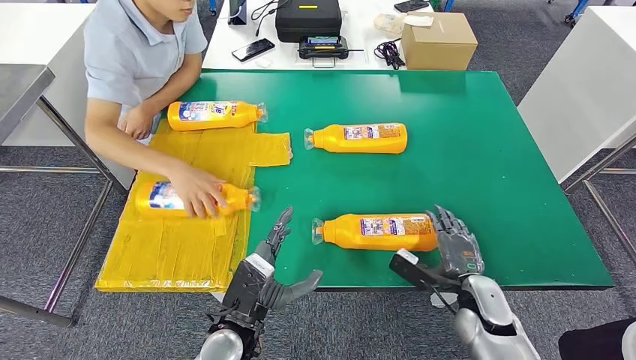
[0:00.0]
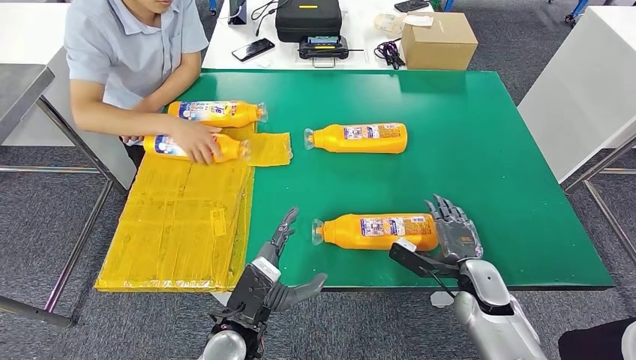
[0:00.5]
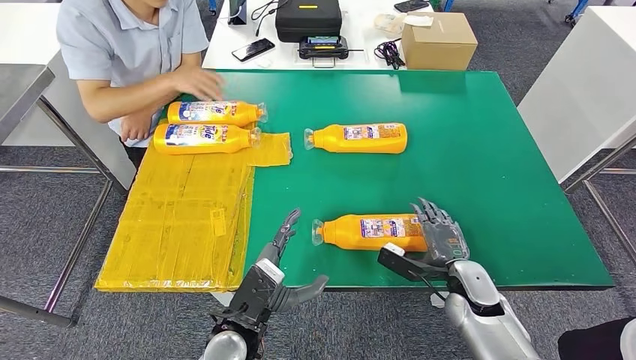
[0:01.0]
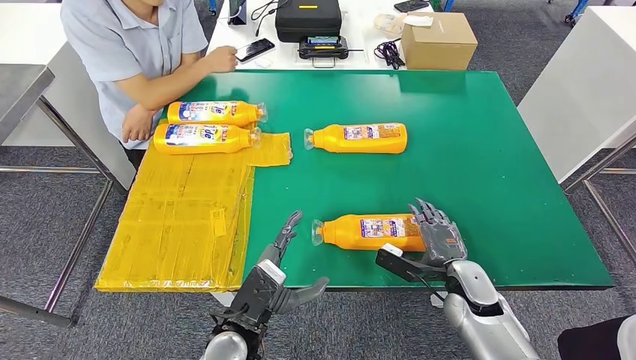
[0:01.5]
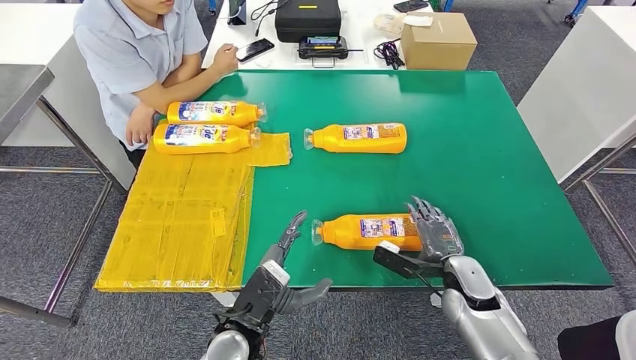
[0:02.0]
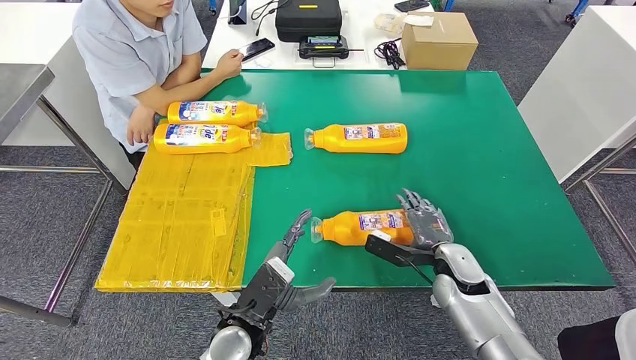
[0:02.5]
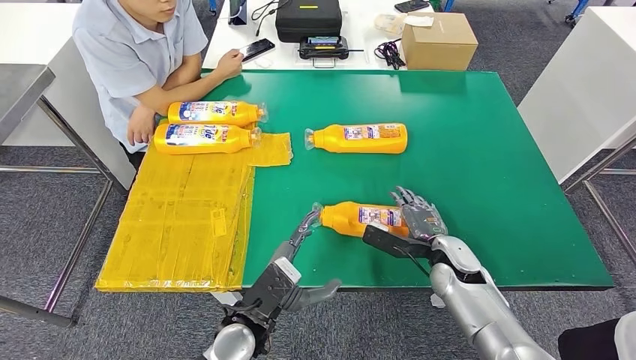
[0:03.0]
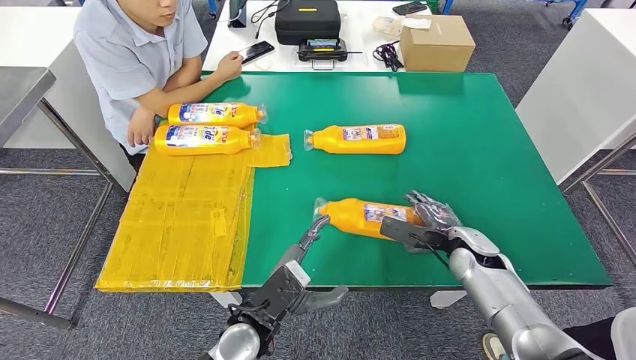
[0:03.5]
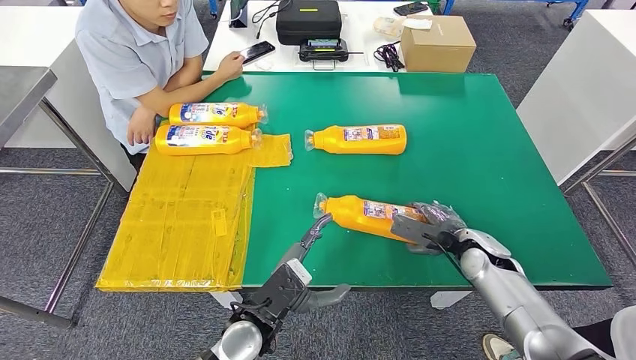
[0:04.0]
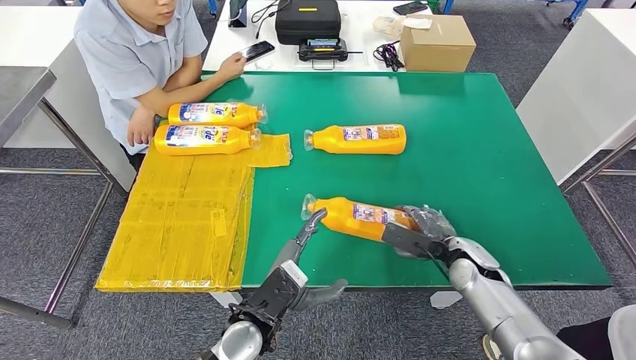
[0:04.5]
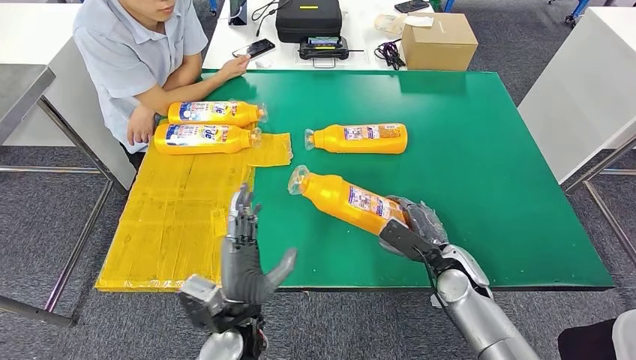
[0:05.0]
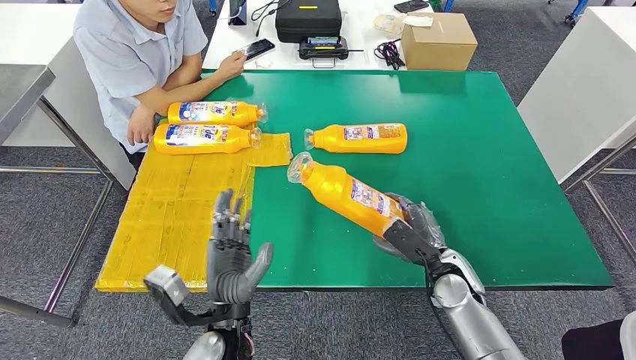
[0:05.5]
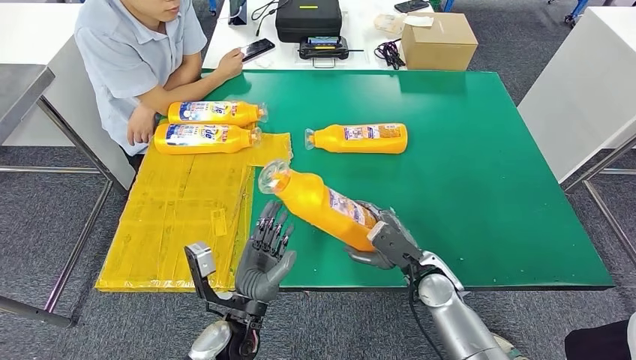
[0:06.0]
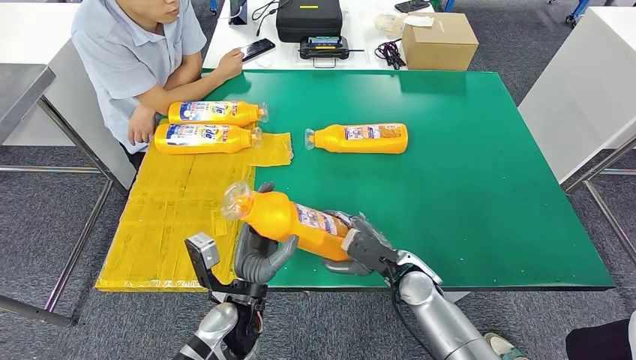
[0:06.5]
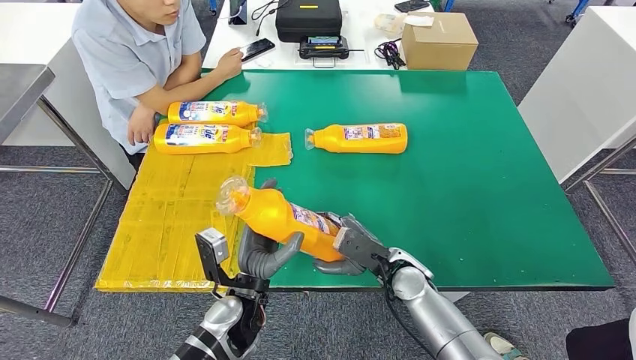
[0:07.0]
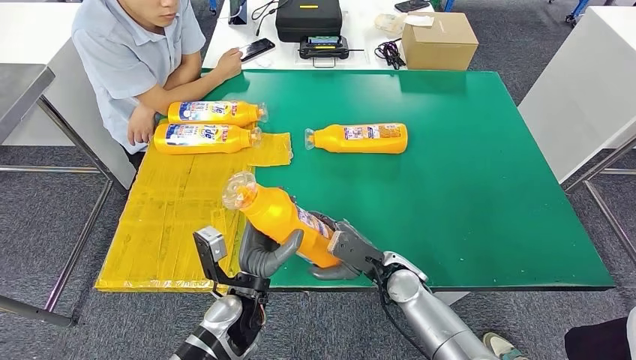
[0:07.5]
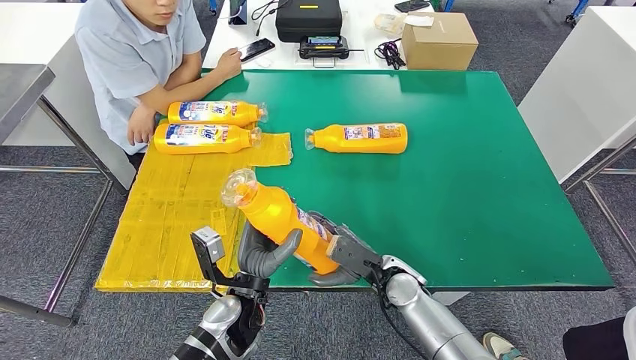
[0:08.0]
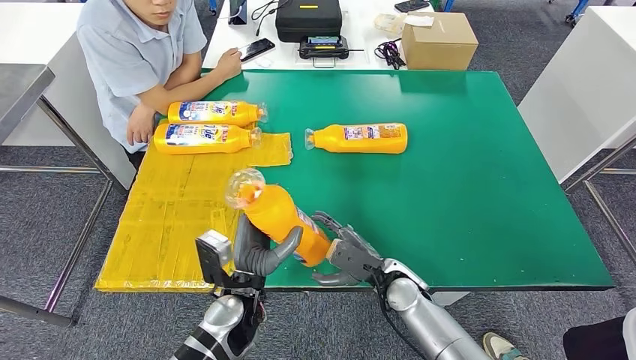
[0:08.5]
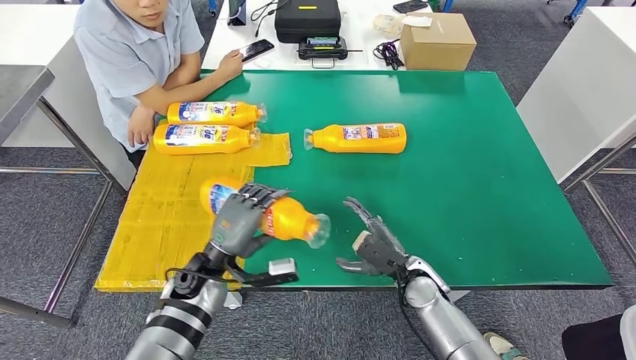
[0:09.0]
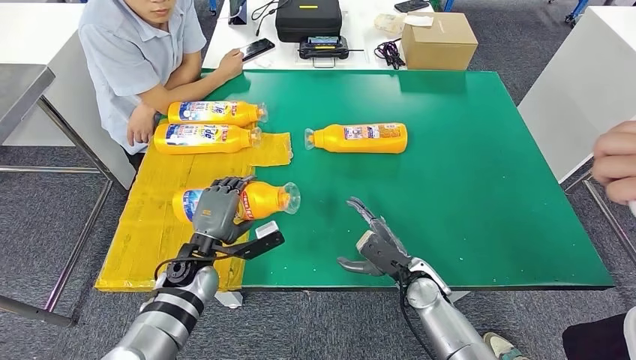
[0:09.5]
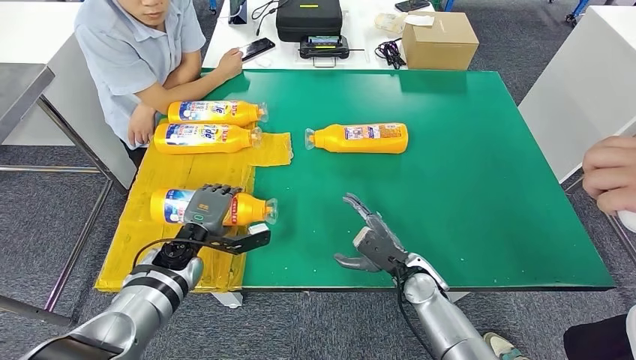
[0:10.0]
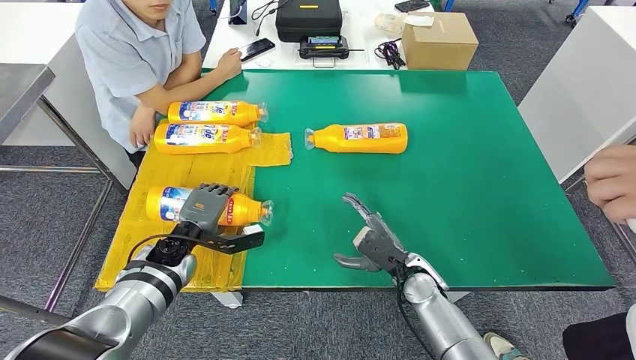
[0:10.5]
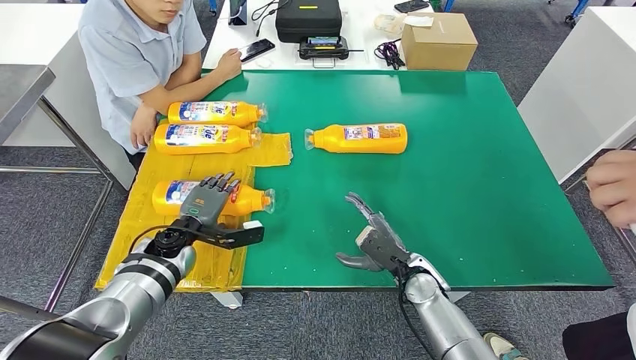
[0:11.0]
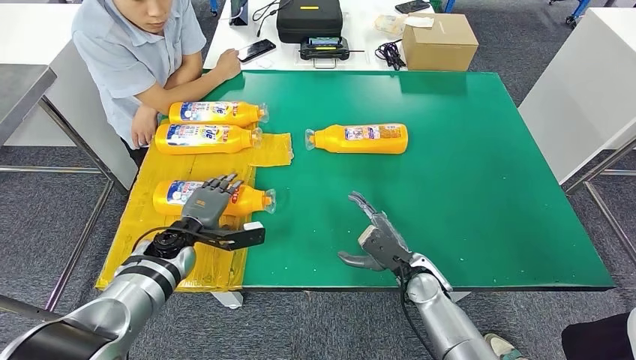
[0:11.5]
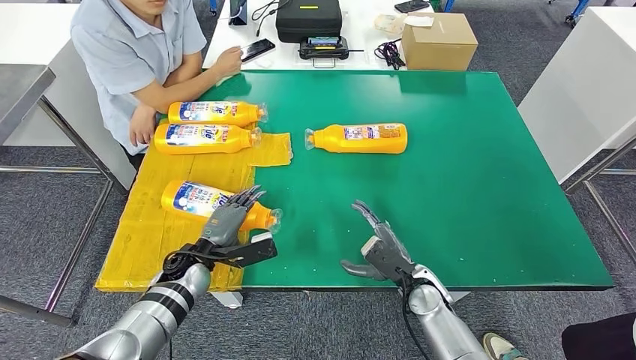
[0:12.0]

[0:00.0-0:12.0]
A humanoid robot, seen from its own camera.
Step, 0:00.0 to 0:06.5: Pick up the bottle from the table.
Step, 0:07.0 to 0:11.5: Flip the bottle to face forward.
0:00.0 to 0:02.0: The hands make only small movements.
0:02.0 to 0:04.0: The right hand goes approximately 5 cm forward.
0:04.0 to 0:06.0: The right hand heads to the left, covering some 10 cm.
0:06.0 to 0:08.0: The right hand shifts roughly 5 cm to the left.
0:08.0 to 0:10.0: The left hand is displaced to the left and forward by about 15 cm.

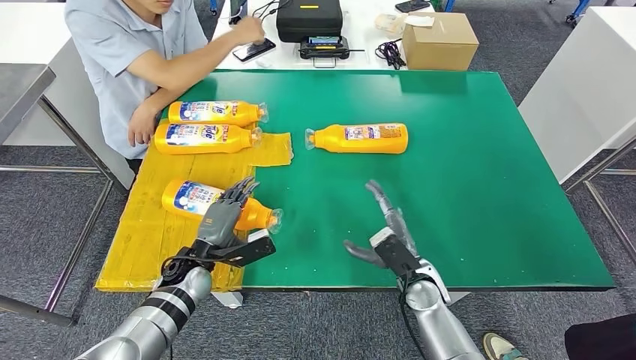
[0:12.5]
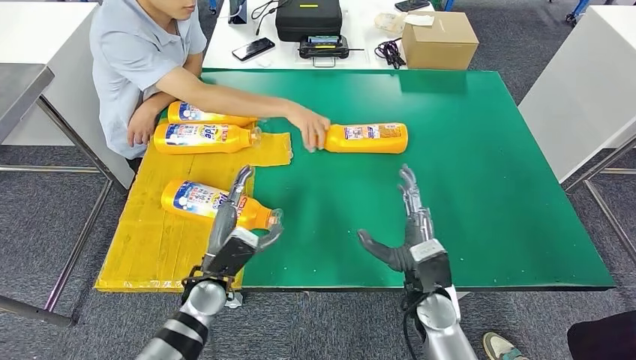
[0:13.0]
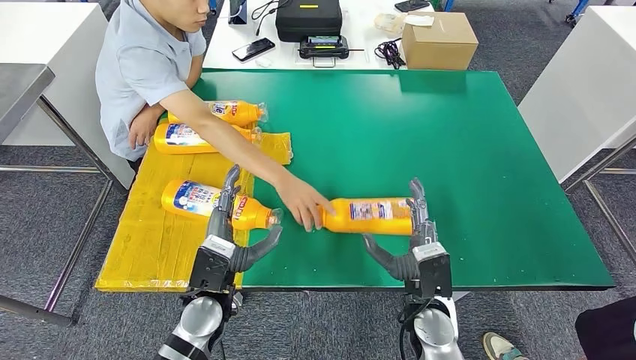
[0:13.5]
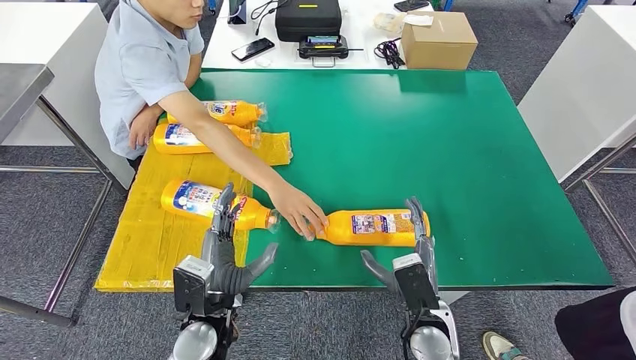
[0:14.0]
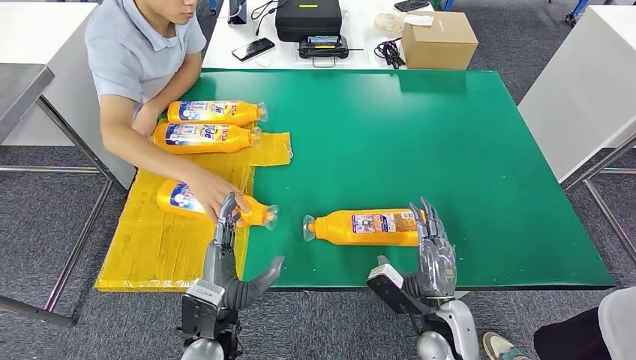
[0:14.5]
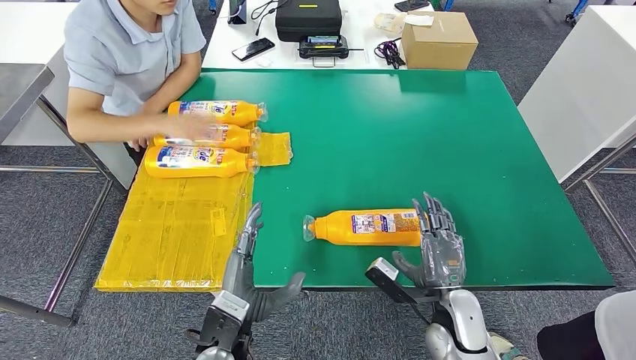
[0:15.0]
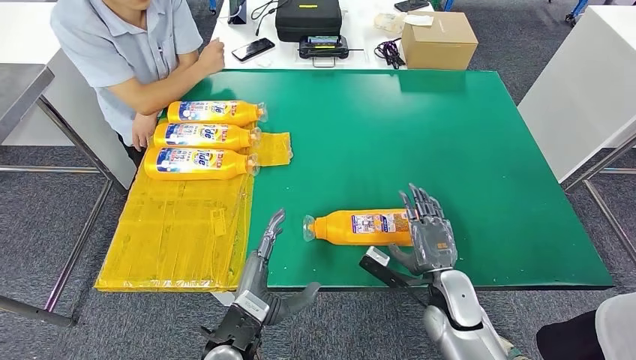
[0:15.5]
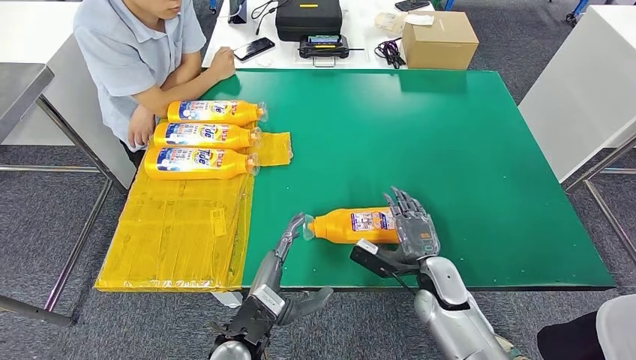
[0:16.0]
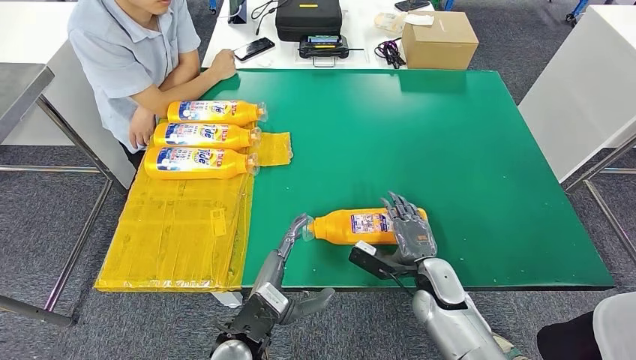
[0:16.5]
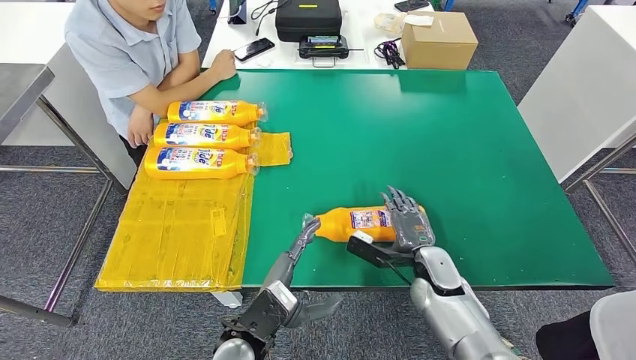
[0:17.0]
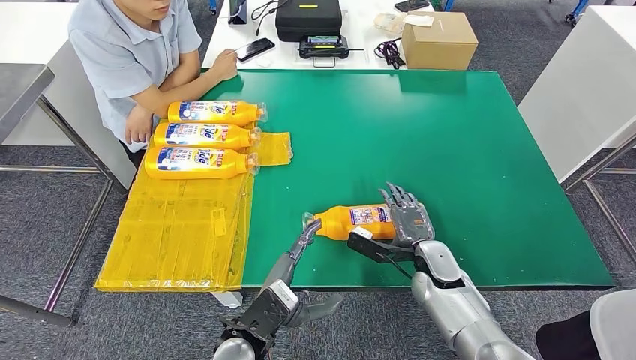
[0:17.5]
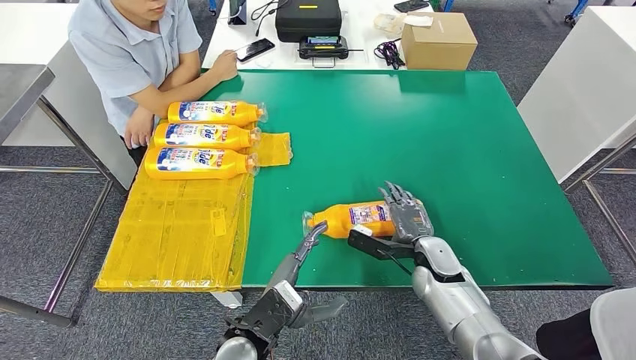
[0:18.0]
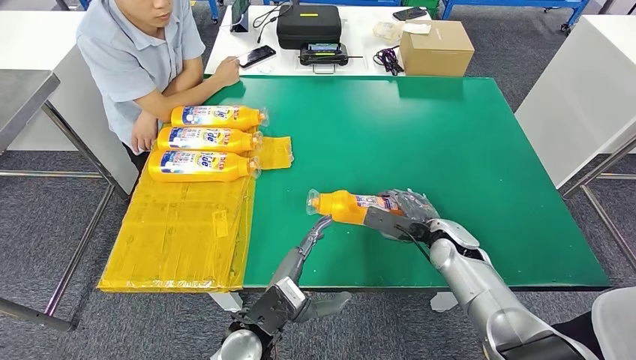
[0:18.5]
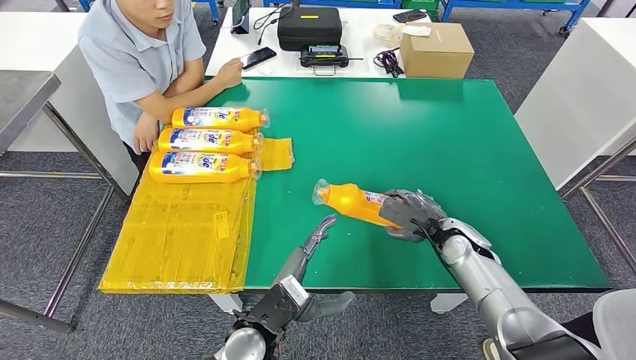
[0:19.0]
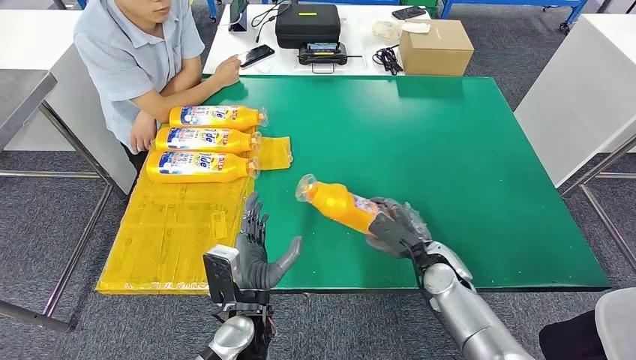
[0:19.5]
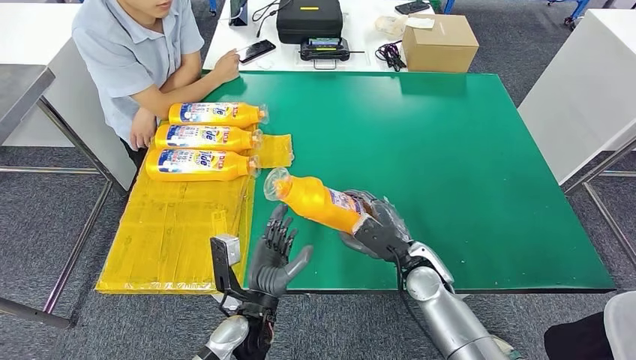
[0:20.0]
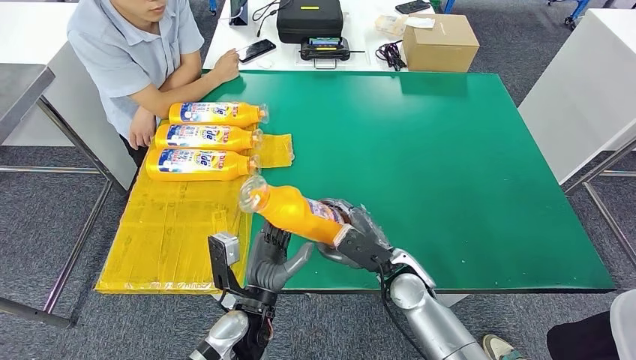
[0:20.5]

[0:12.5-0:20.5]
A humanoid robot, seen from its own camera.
Step, 0:12.5 to 0:20.0: Pick up the bottle from the table.
0:14.5 to 0:16.5: The right hand goes some 10 cm forward.
